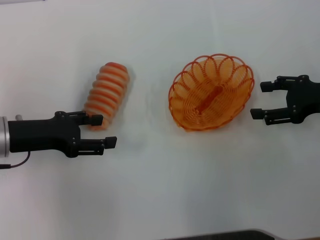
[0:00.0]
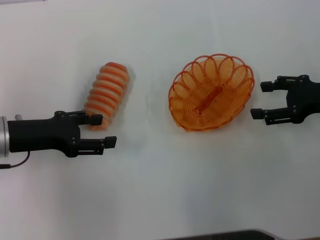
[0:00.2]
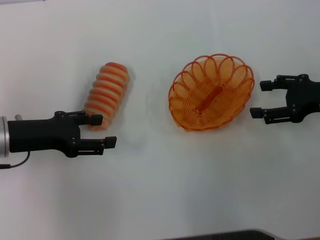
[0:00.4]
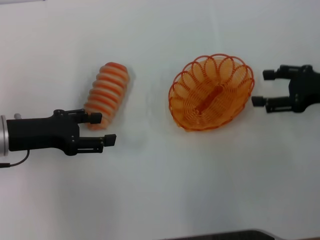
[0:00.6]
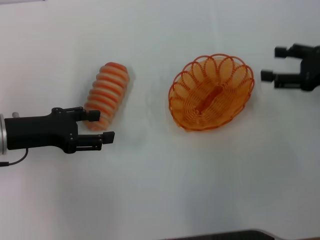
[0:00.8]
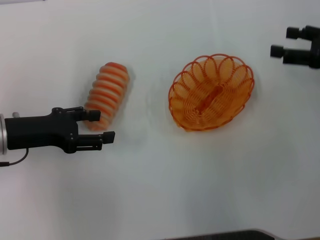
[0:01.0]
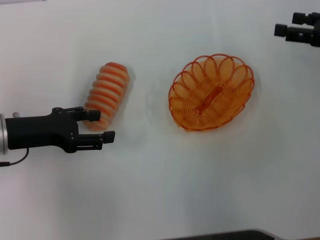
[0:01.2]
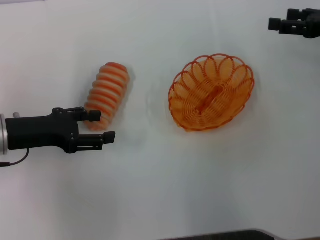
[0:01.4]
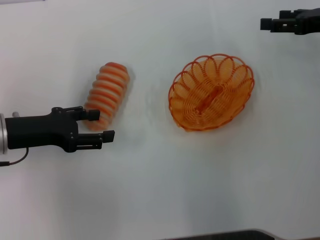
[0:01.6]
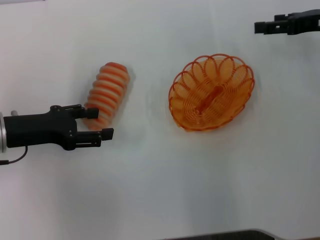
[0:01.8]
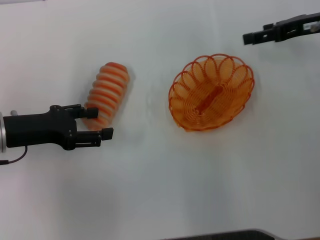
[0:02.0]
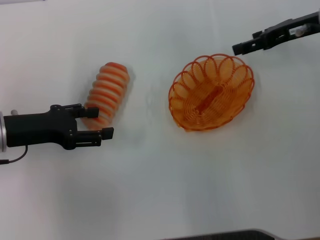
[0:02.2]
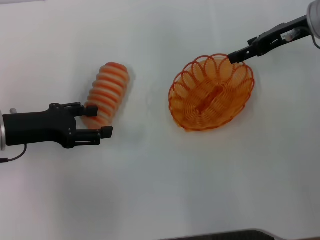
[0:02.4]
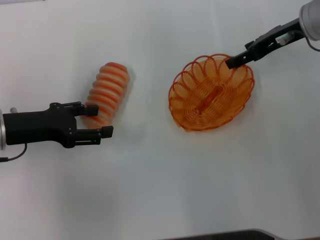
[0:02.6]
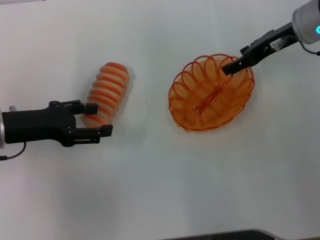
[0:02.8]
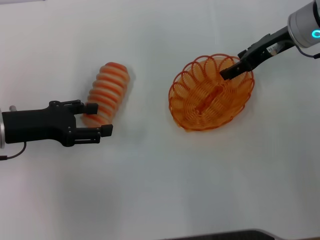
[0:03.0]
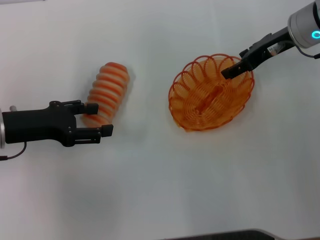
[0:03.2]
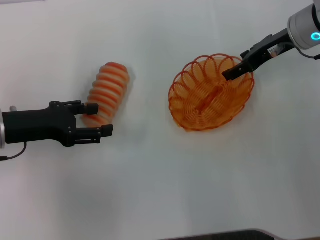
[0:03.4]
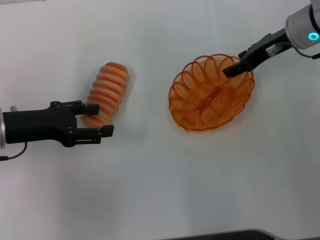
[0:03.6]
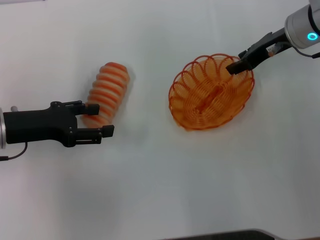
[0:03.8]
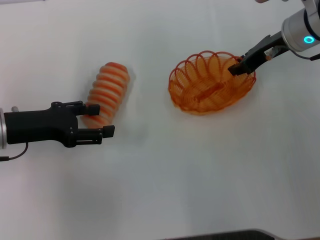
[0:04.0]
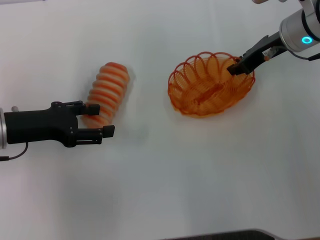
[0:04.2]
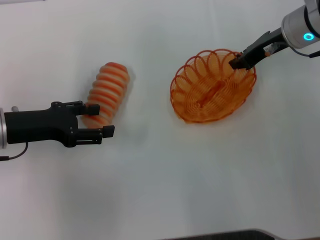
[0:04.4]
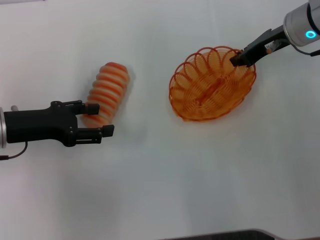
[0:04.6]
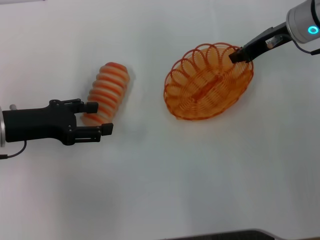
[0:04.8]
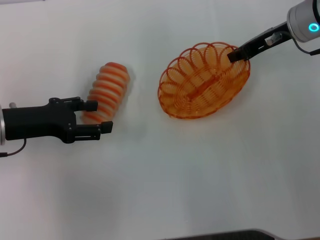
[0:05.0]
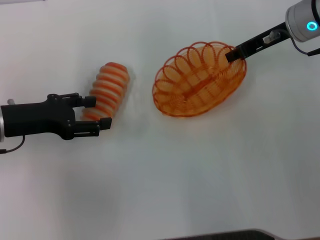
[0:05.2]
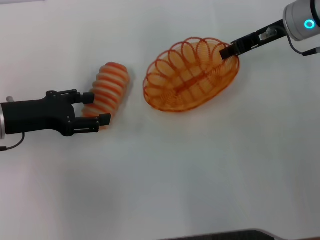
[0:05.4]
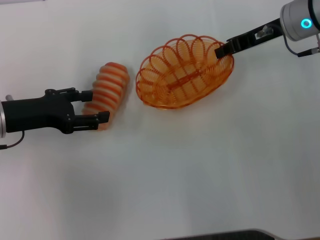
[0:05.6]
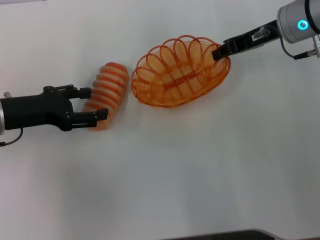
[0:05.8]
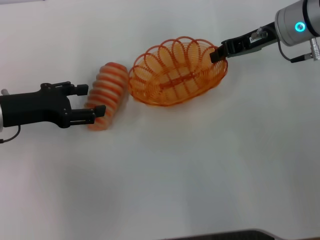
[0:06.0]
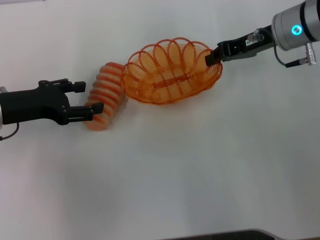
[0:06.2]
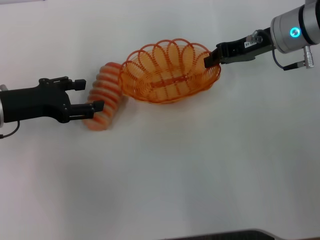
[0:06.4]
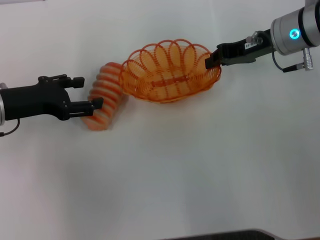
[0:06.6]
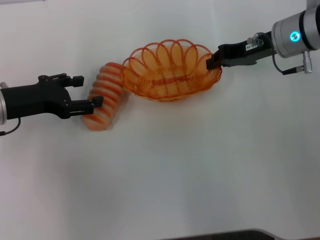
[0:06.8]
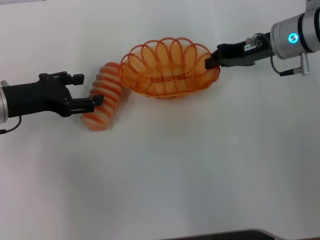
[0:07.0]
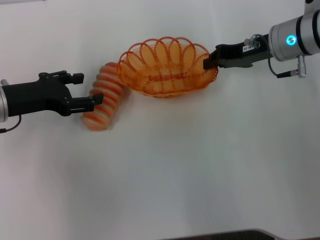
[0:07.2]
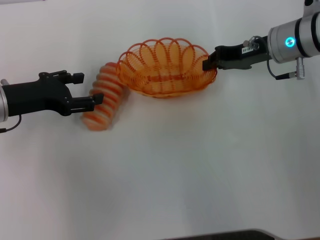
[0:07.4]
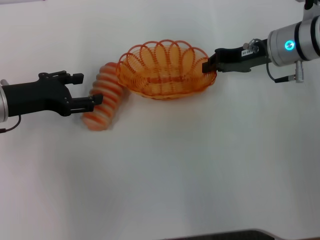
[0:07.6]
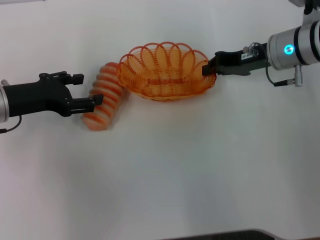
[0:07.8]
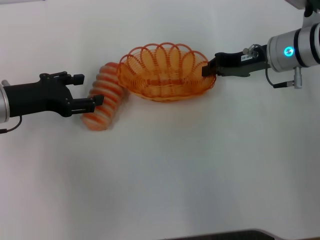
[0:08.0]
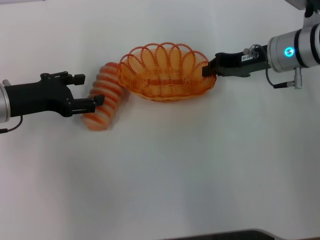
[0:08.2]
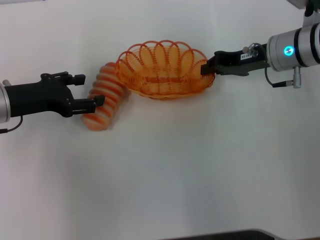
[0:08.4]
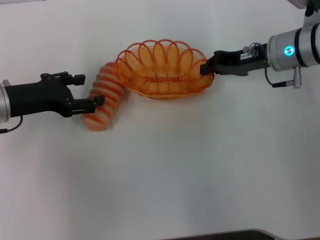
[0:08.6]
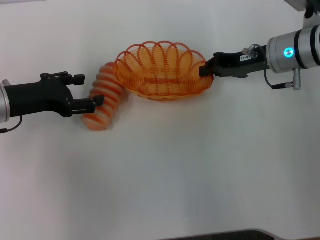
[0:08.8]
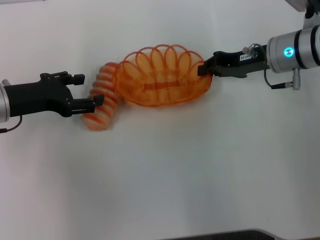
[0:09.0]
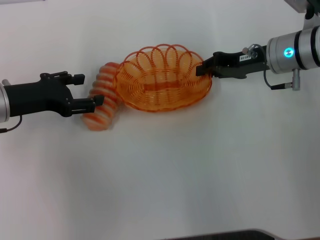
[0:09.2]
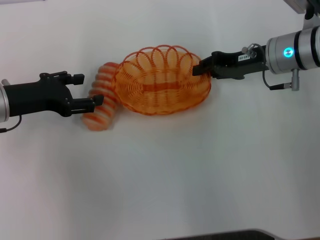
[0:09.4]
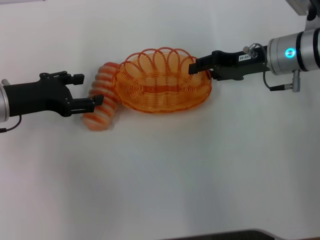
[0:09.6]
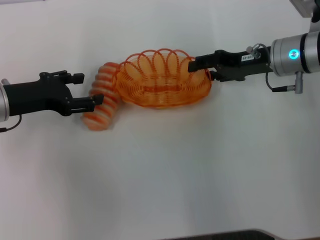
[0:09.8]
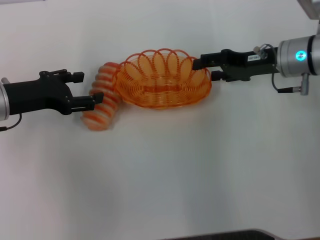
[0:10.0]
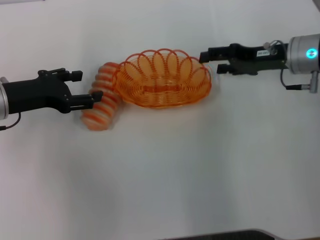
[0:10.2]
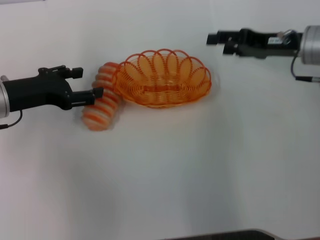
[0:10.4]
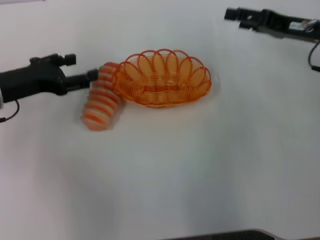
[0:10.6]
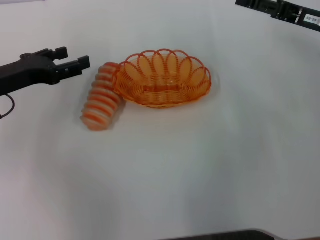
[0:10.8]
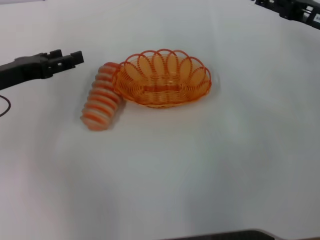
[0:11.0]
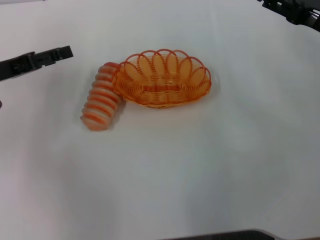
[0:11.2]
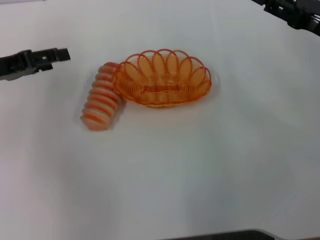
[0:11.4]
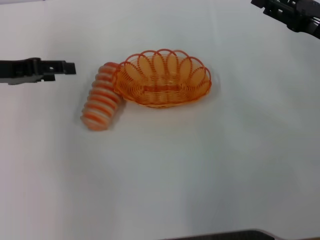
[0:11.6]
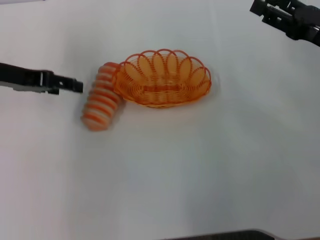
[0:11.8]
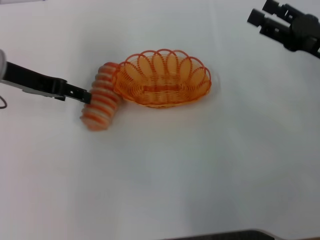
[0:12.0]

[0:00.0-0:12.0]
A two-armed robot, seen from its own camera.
Step, 0:00.0 to 0:04.6: Pick up the basket with the right gripper.
Step, 0:04.8 to 0:10.0: Place the basket in the center of view with the right gripper.
0:00.0 to 0:01.6: The right gripper goes approximately 5 cm forward.
0:01.6 to 0:03.0: The right gripper goes approximately 10 cm to the left.
0:03.0 to 0:04.4: The right gripper closes its fingers.
0:06.0 to 0:07.6: The grippers move only a little.
0:07.6 to 0:09.0: The two grippers keep their place.
0:09.0 to 0:10.4: The right gripper opens up.
0:10.4 to 0:12.0: The left gripper heads upward, covering approximately 5 cm, while the right gripper goes about 5 cm backward.

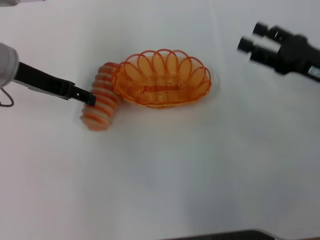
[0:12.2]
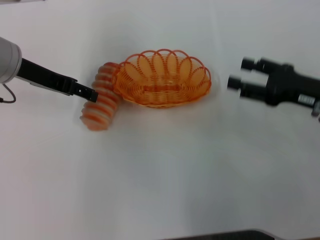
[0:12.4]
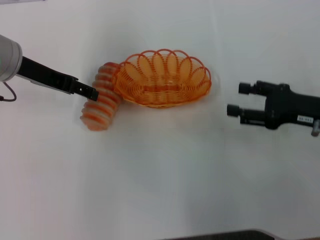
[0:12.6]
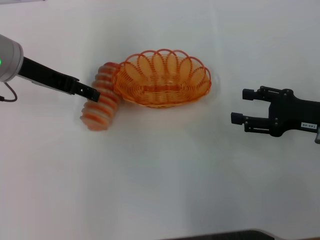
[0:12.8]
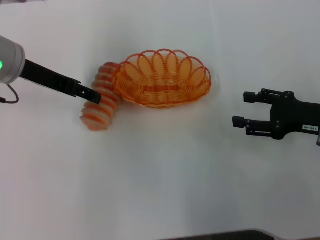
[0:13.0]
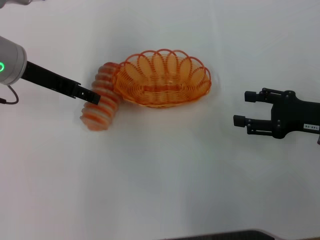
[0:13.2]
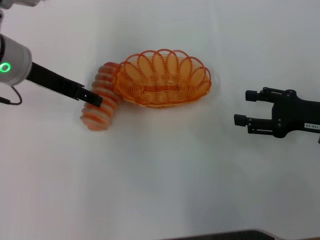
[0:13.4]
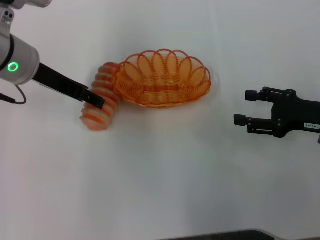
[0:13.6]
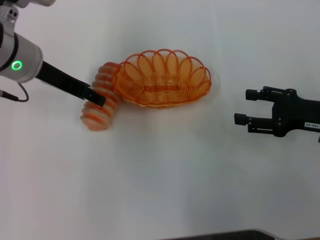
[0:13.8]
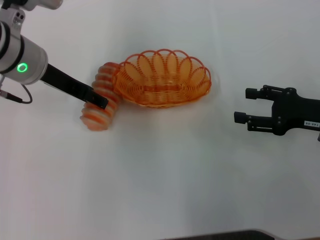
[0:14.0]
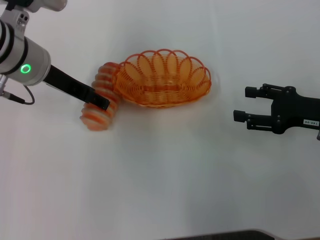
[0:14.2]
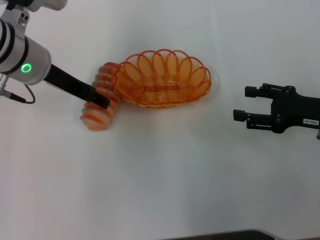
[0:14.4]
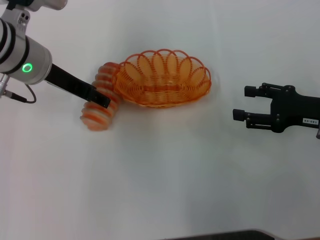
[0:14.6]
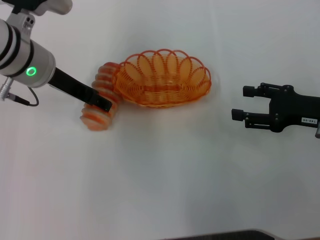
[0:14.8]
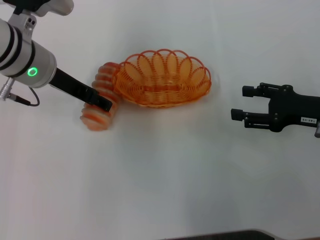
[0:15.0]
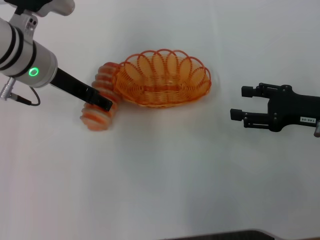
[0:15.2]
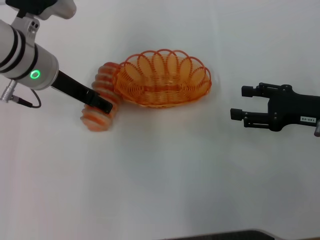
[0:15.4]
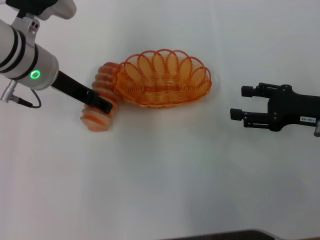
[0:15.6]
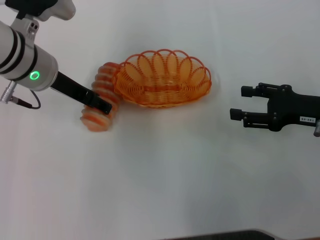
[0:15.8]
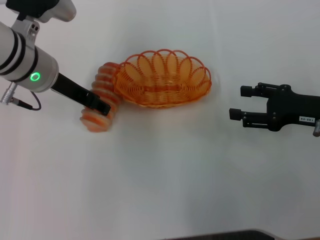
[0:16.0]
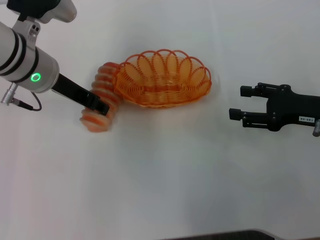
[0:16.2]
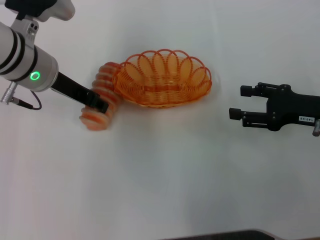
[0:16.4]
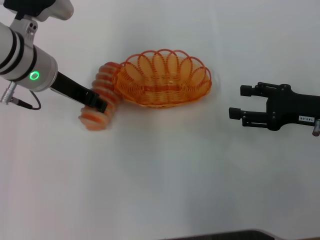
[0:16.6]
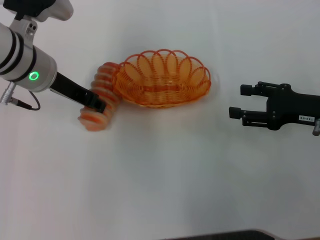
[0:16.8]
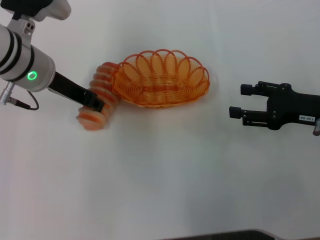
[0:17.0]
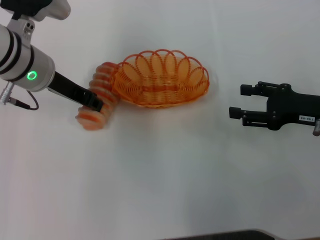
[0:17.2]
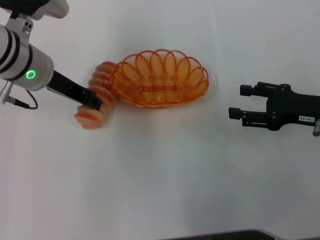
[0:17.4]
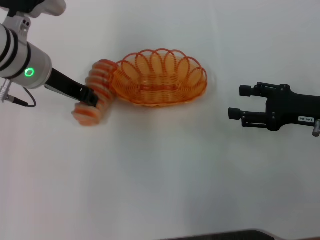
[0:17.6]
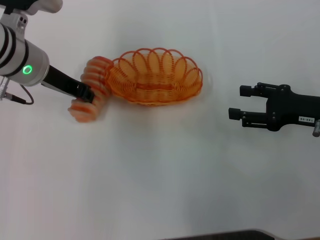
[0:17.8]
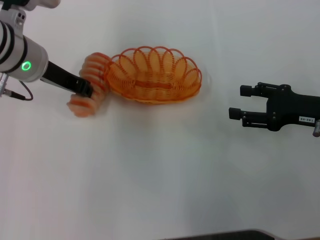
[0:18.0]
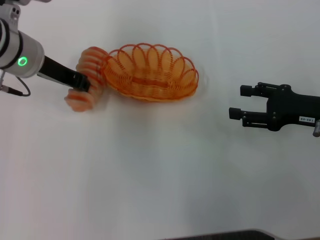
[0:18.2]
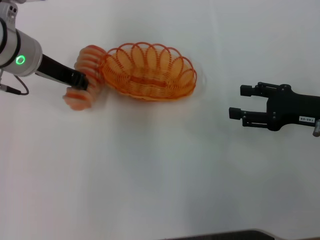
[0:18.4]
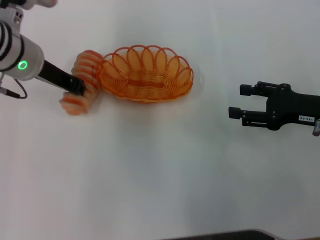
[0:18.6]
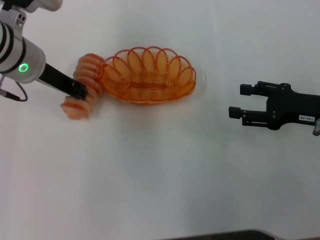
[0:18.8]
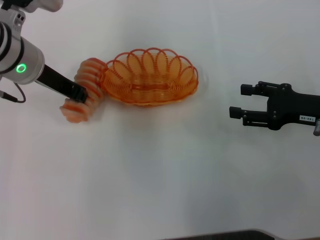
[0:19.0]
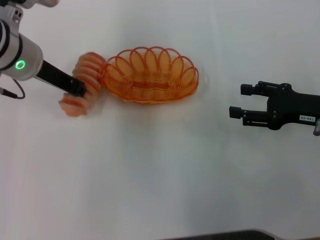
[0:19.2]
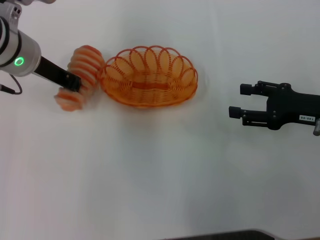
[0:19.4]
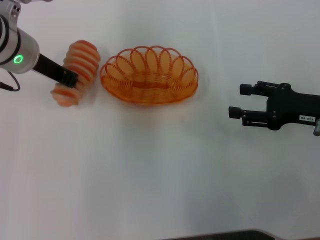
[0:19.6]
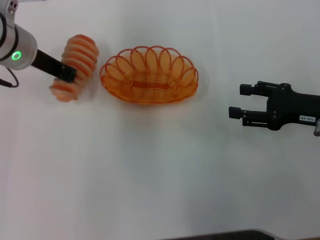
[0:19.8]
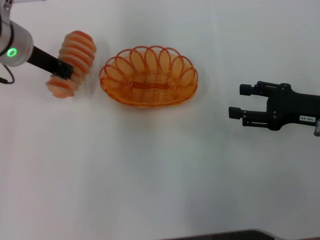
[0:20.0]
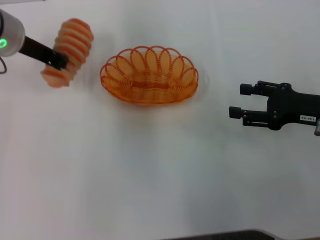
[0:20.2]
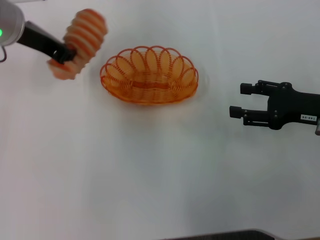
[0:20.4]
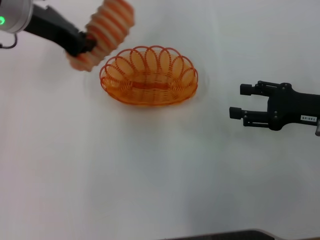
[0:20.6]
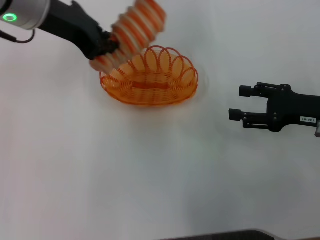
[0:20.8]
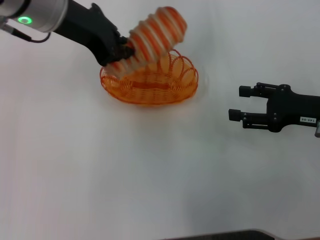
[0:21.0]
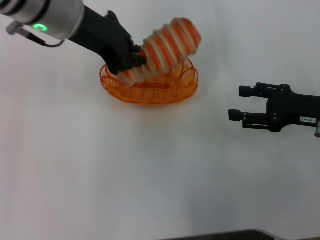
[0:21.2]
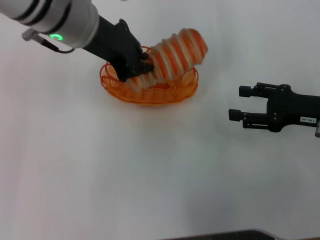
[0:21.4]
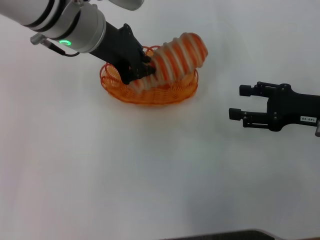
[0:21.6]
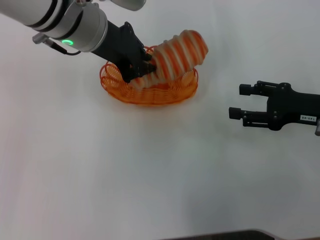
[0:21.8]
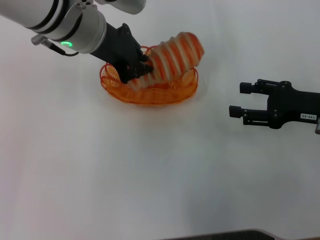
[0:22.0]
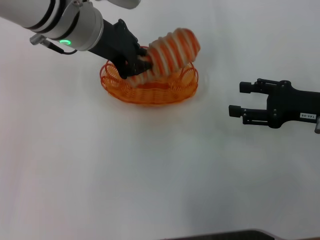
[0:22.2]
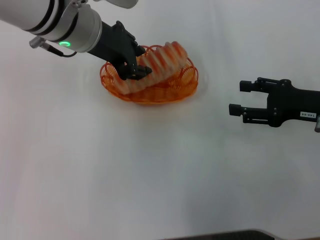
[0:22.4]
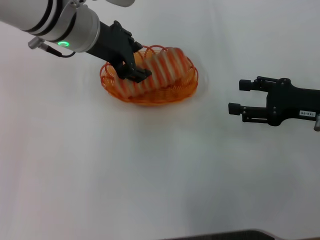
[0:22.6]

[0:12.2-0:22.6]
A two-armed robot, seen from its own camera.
Step, 0:12.2 to 0:19.6: Pick up the long bread with the left gripper.
0:13.6 to 0:15.2: The grippers move only a little.
0:15.2 to 0:16.6: The left gripper closes.
0:16.6 to 0:18.2: The left gripper closes.
0:18.2 to 0:19.6: The grippers stay close to where they were, moving slightly.
0:19.6 to 0:21.2: The left gripper is displaced upward and to the right by some 10 cm.
0:21.2 to 0:22.6: The left gripper opens.
